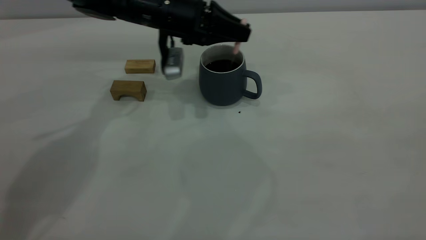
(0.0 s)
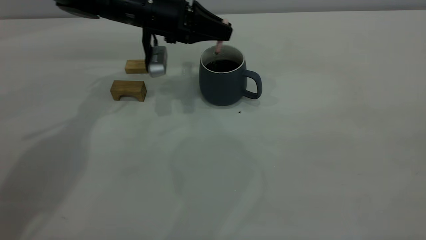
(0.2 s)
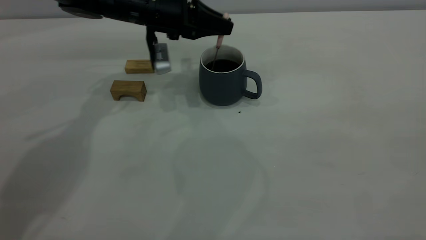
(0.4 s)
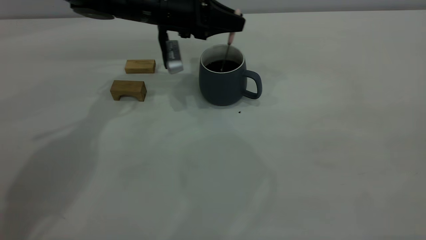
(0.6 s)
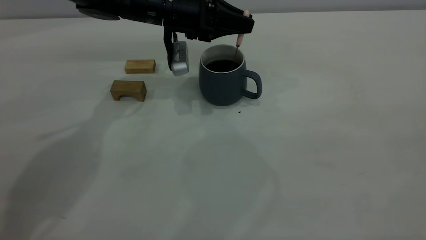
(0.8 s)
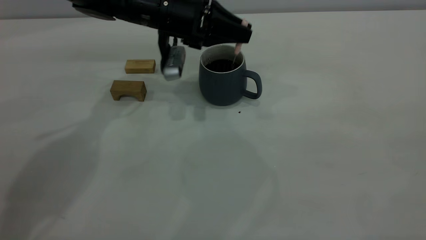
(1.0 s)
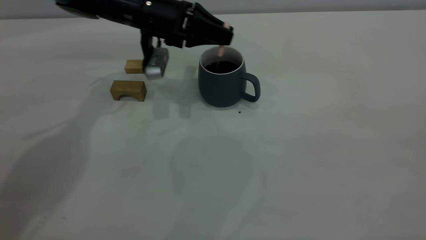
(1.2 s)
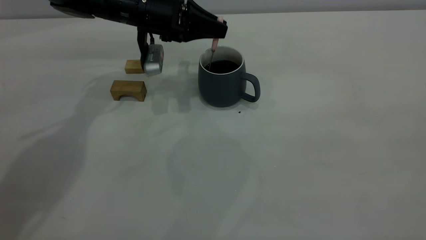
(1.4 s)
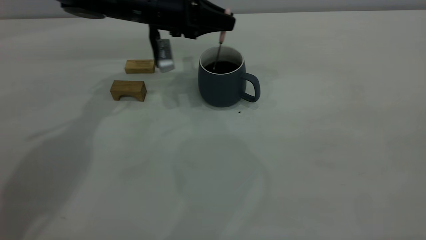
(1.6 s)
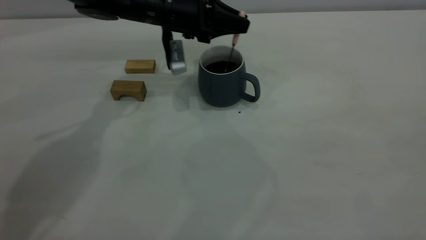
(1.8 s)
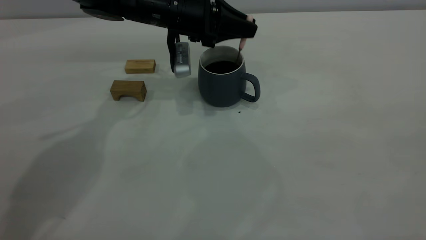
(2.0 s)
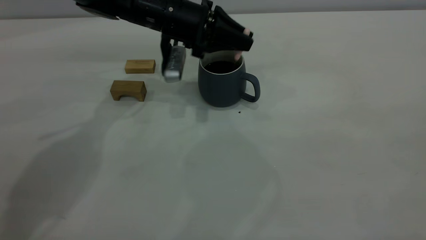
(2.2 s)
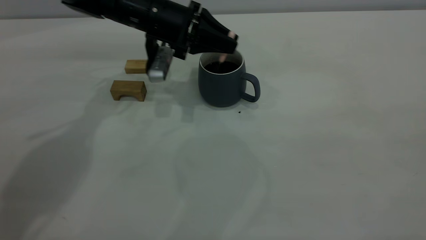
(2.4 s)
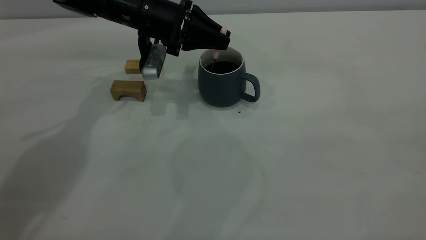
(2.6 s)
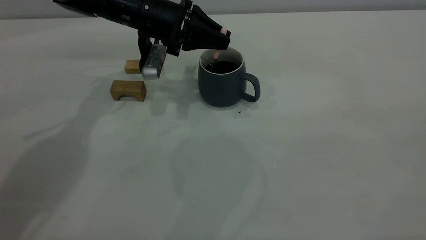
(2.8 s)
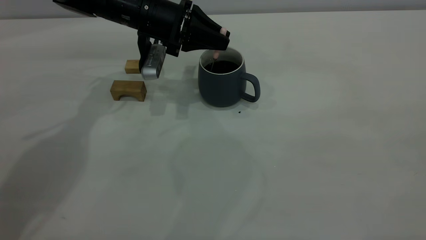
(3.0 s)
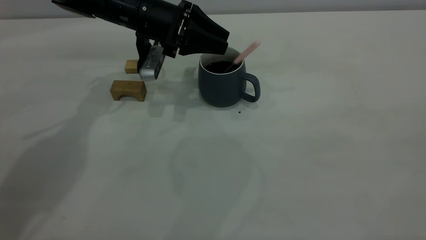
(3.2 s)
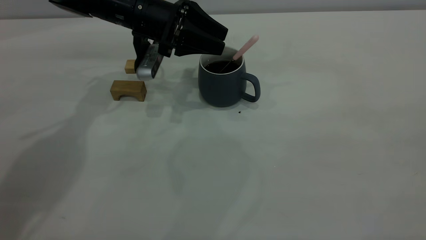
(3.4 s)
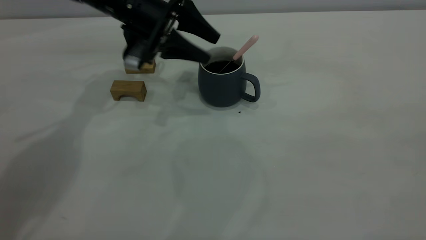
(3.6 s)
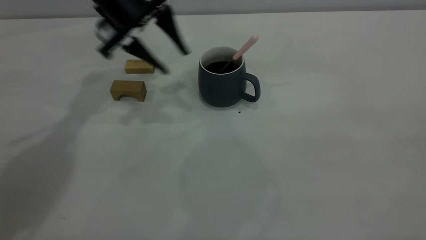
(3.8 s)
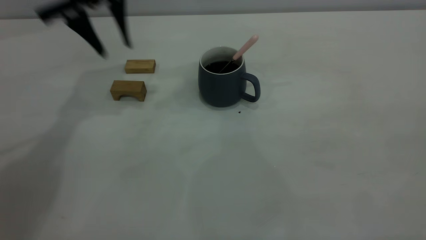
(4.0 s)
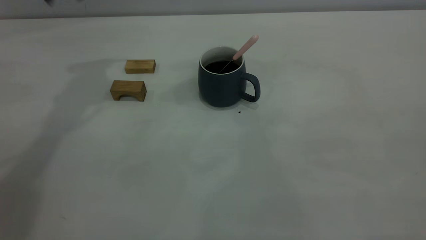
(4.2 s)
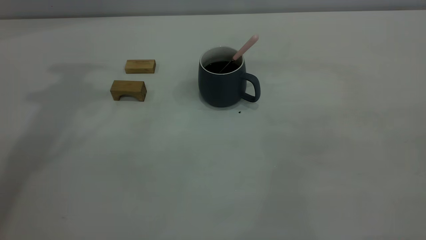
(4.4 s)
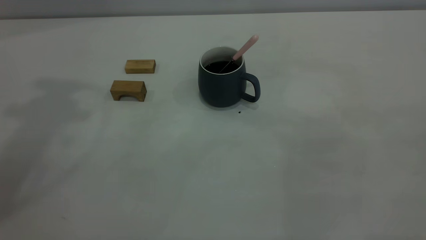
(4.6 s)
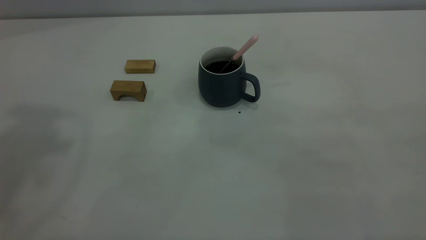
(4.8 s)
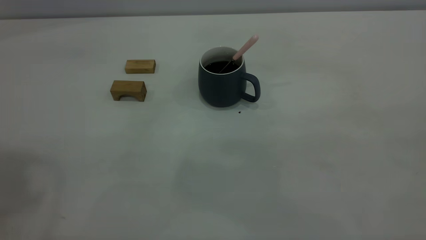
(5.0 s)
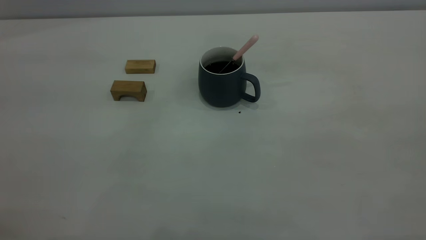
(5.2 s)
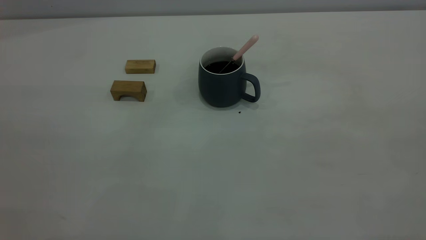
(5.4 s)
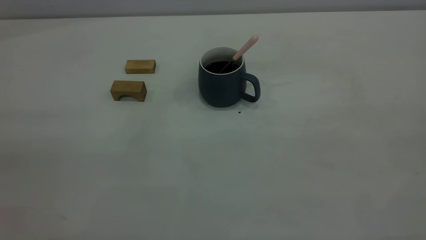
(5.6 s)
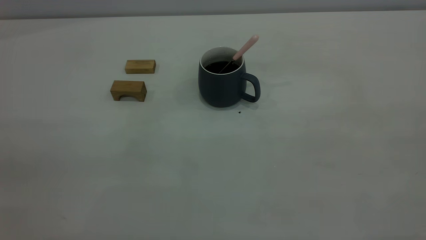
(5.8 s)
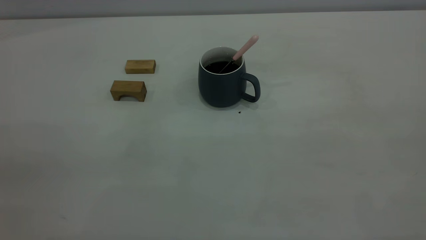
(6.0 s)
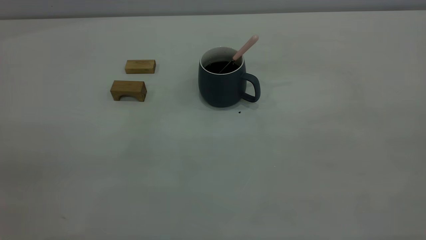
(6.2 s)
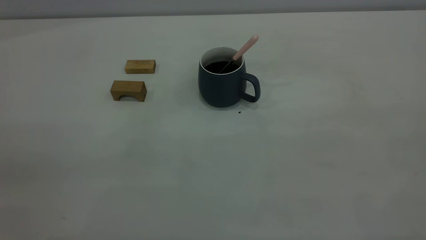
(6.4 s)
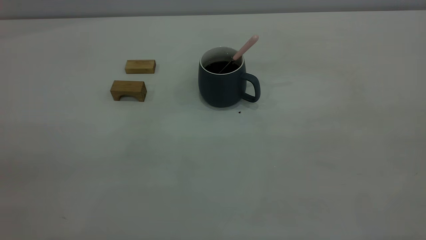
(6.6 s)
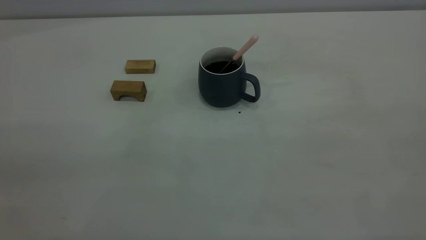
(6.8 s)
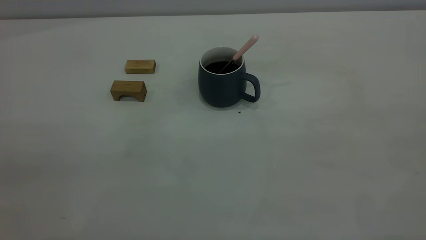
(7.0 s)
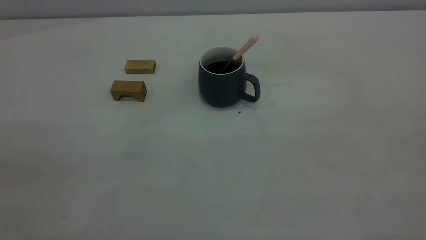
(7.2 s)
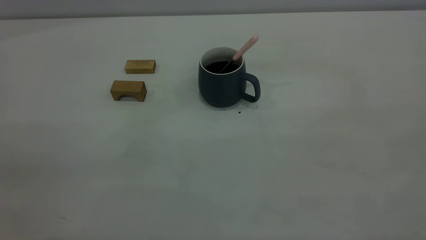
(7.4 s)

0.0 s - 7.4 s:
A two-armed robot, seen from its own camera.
Step, 0.0 s - 3.8 s: Stir the coffee in the cup.
0.0 s - 3.0 s: There are only small adjustments of the grippers.
3.0 s - 4.4 s: The left gripper is displaced upward by approximately 35 cm, and opens its fingers.
6.0 s - 7.4 s: The two grippers keep their place.
